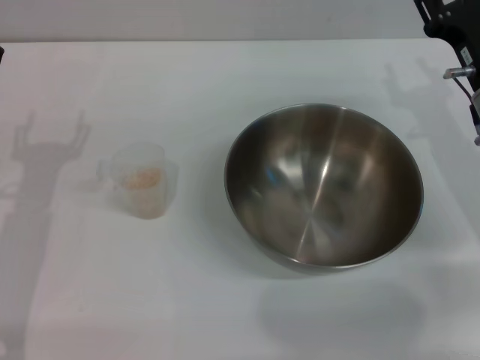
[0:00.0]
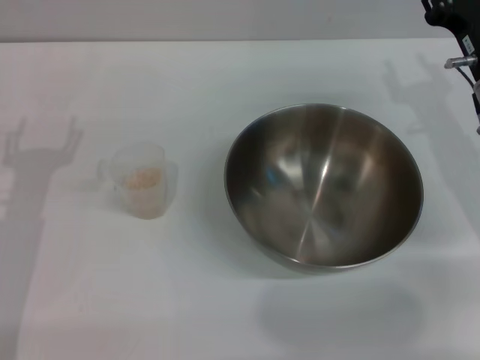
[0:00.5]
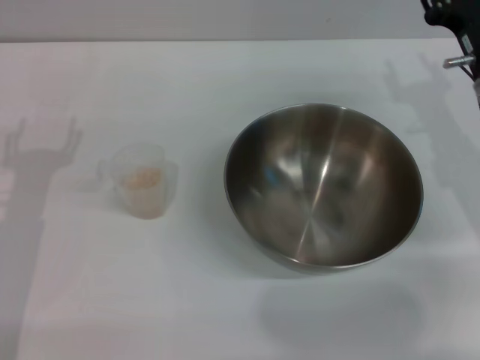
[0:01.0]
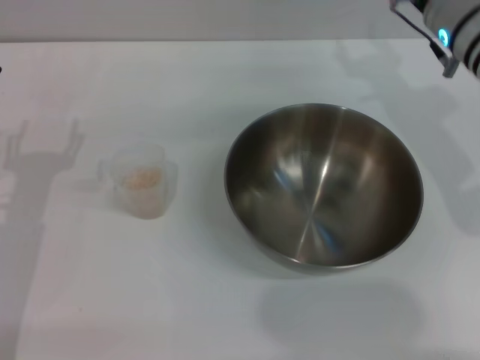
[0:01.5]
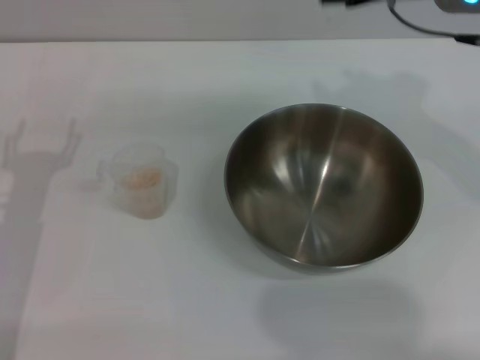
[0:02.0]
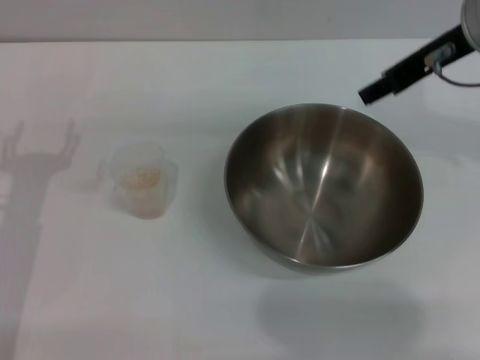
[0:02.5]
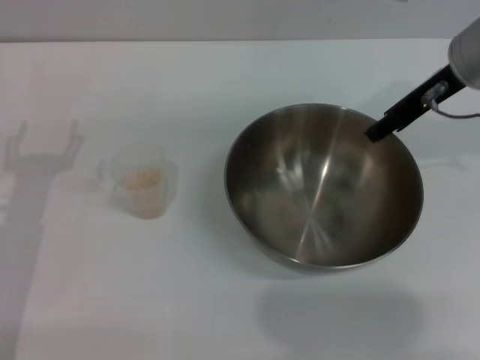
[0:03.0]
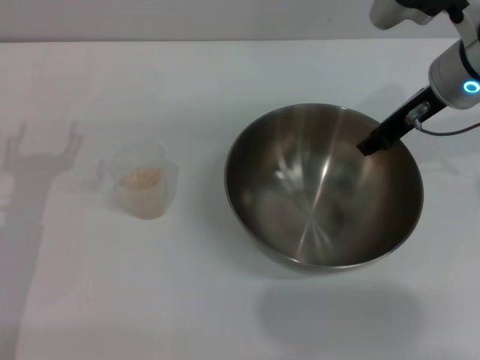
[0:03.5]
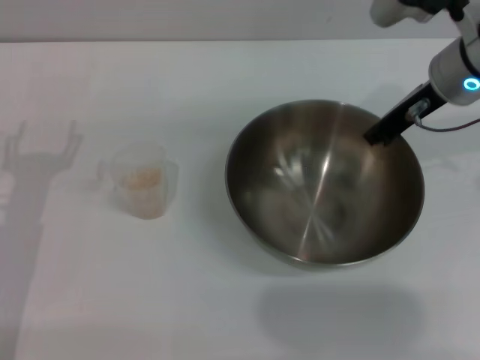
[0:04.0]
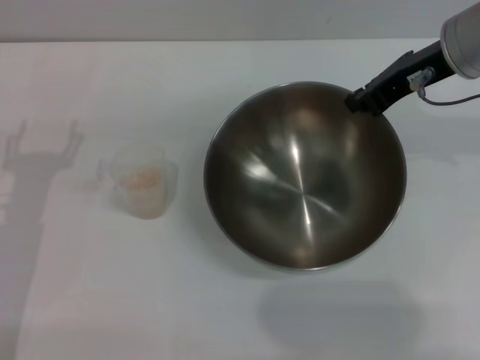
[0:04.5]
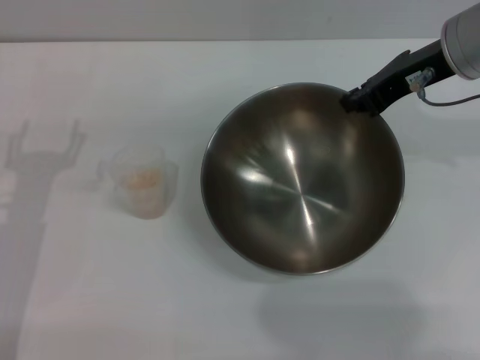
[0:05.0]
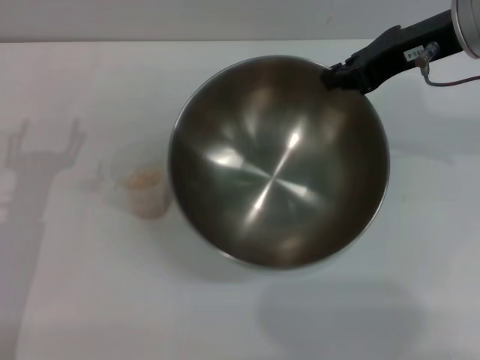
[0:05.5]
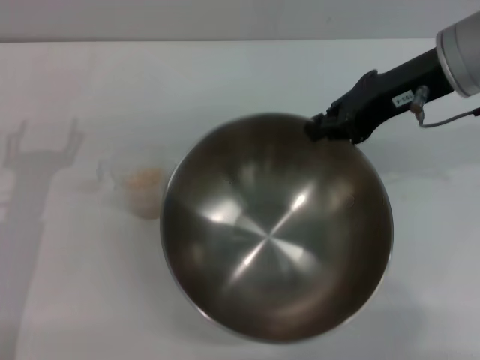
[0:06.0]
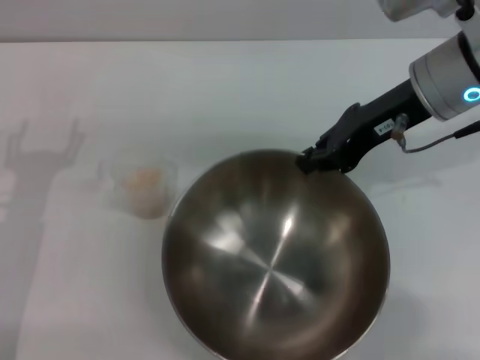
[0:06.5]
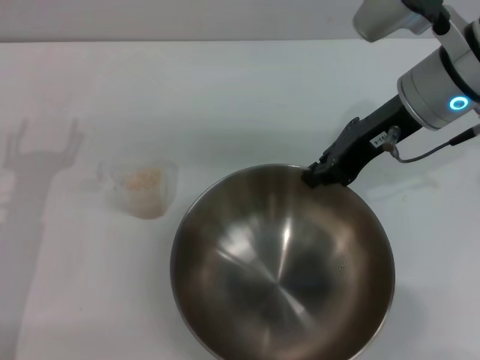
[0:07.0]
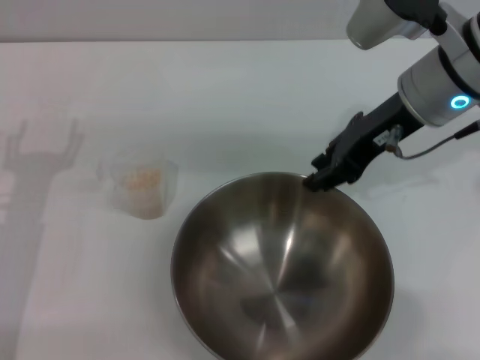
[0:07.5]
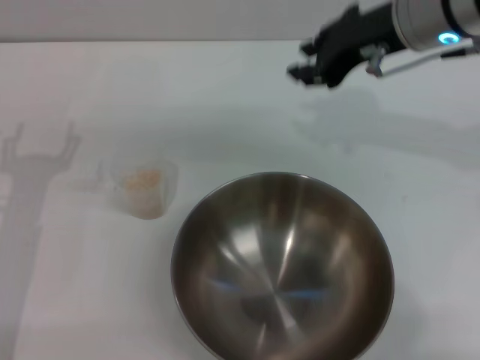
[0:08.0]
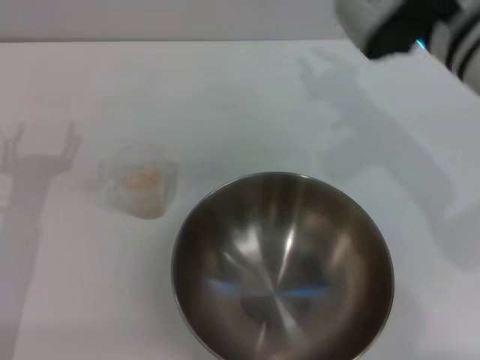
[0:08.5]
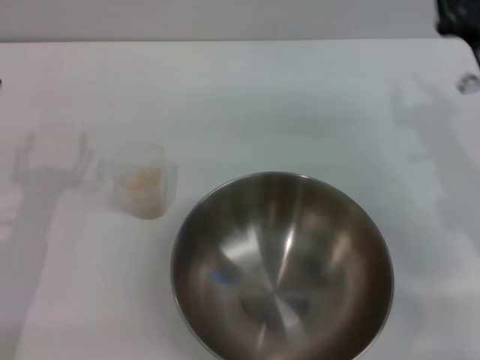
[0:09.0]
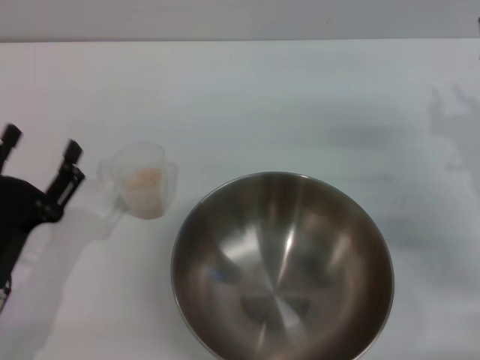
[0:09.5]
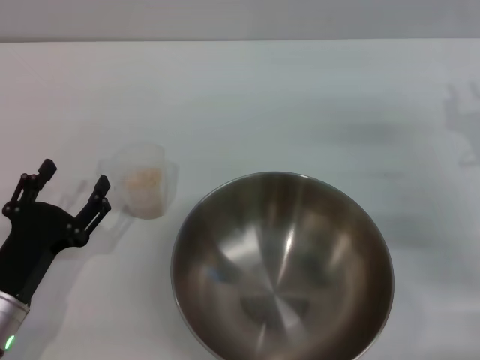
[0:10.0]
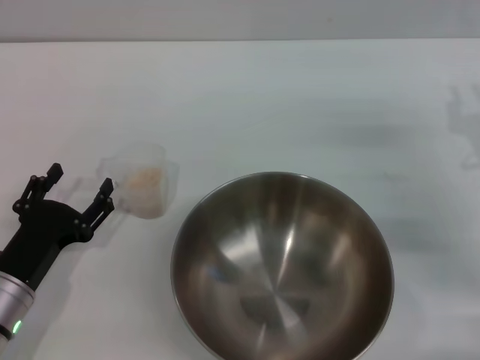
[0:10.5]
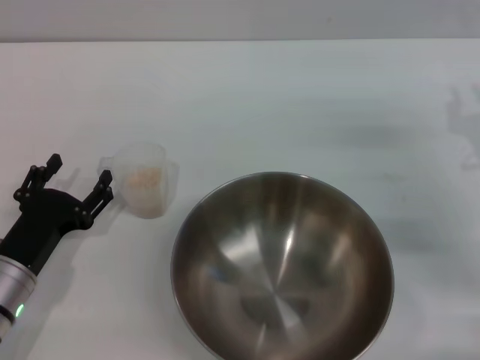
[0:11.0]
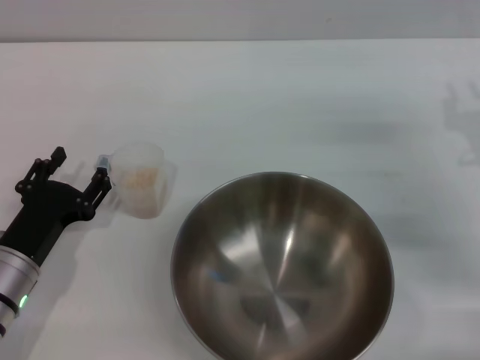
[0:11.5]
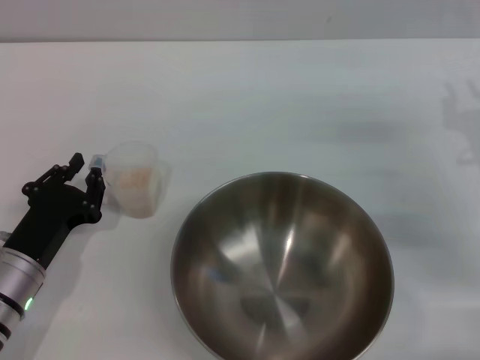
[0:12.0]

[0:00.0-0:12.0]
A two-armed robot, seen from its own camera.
Task of the whole recording: Place the bowl in the middle of the table with one hand and pour the rice from the grain cup into it with the other hand.
Step, 0:00.0 to 0:05.5: Pick up the bowl with the right gripper.
Step, 0:06.0 to 0:07.5: Place the bowl in the center of view with the right gripper.
0:00.0 to 0:02.0: The right gripper moves upward and to the left, approximately 20 cm.
0:02.0 to 0:04.0: The right gripper heads downward, covering about 10 cm, and closes its fingers.
0:04.0 to 0:06.0: The right gripper changes place by about 5 cm.
0:06.0 to 0:08.0: The right gripper opens its fingers.
0:08.0 to 0:10.0: The right gripper heads downward, to the right and backward, covering roughly 25 cm. Meanwhile the left gripper moves backward and downward, approximately 10 cm.
0:10.0 to 0:12.0: The grippers move only a little.

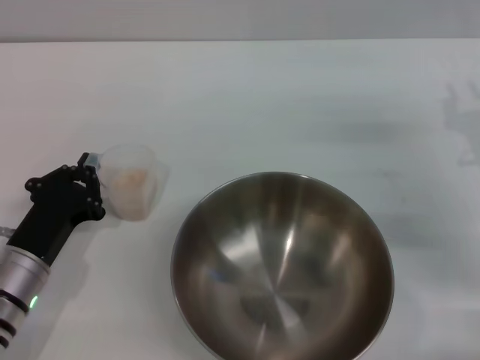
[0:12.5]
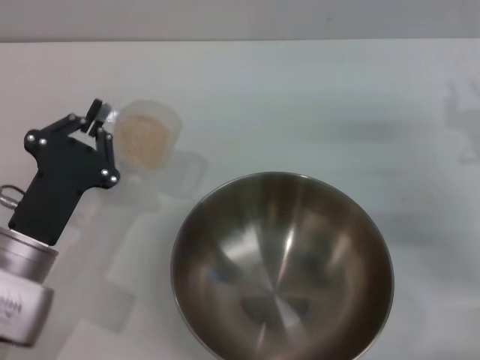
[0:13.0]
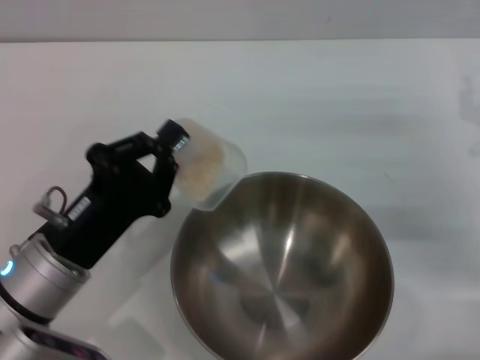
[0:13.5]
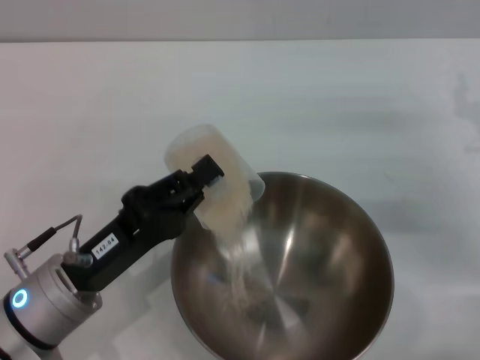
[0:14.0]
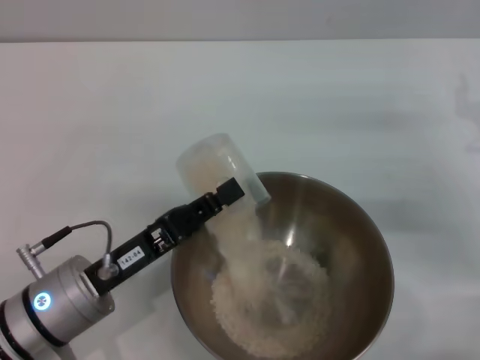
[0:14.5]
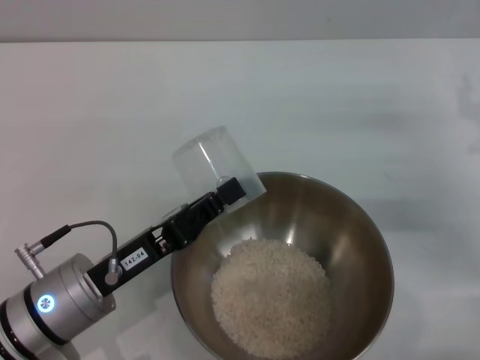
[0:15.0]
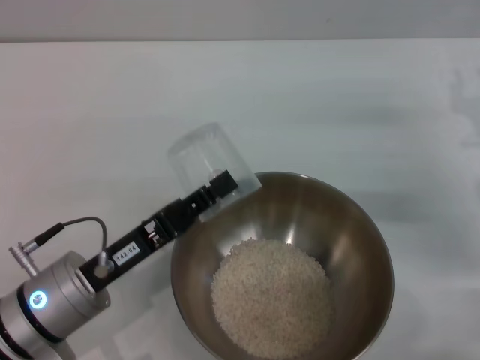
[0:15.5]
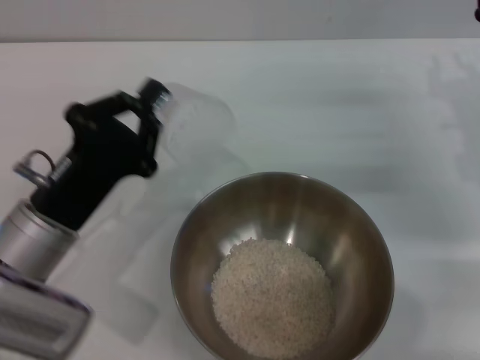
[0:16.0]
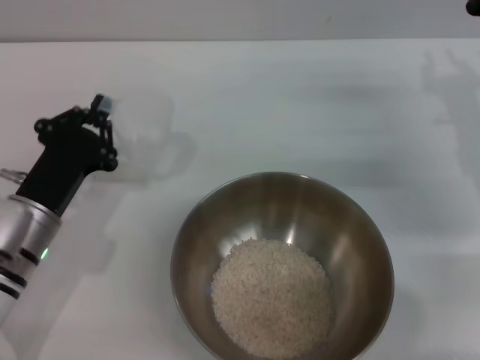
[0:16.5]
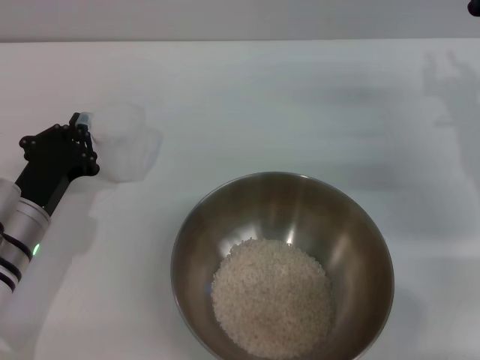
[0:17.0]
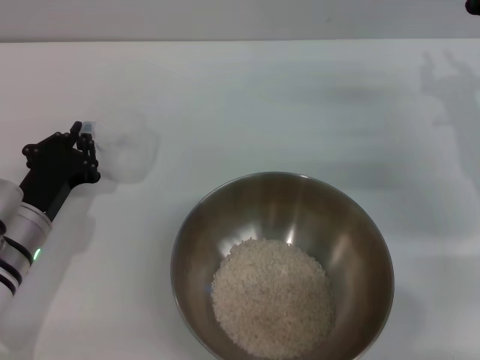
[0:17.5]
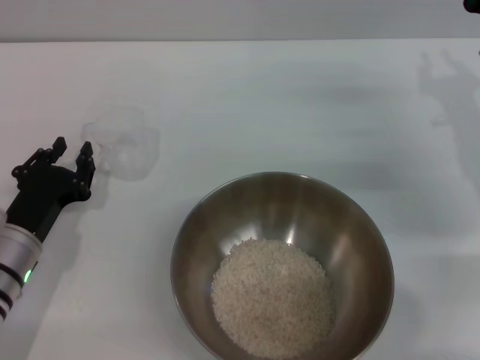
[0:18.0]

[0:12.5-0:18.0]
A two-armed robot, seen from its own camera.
Task of the whole recording: Place the bowl in the middle of the table with one hand and pour the rice from the grain cup into it with the other hand.
Step, 0:13.0 to 0:16.0: Pour the rice from the cup into the bowl with the left gripper.
Step, 0:16.5 to 0:18.0: Place the cup on the table with the left gripper.
0:12.5 to 0:14.5: The left gripper travels to the right by about 5 cm.
0:16.0 to 0:18.0: The left gripper is displaced downward by some 5 cm.
